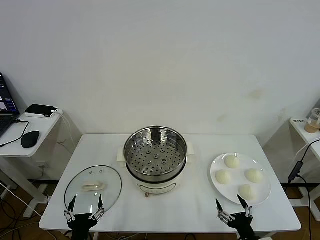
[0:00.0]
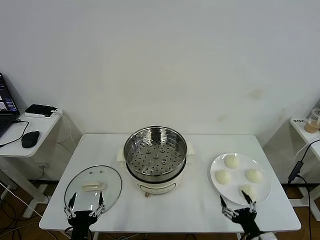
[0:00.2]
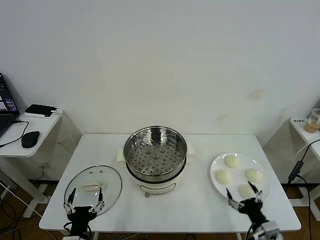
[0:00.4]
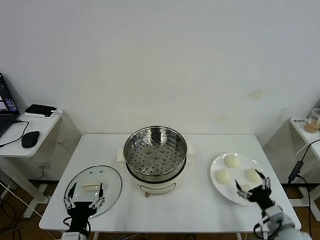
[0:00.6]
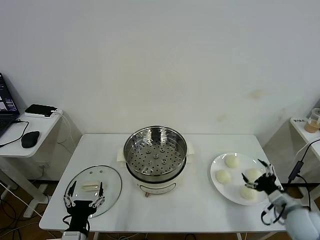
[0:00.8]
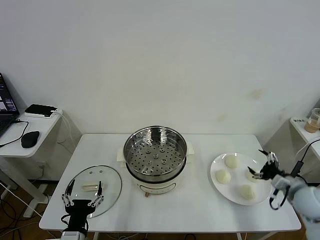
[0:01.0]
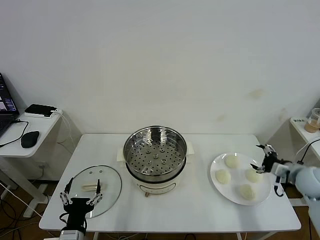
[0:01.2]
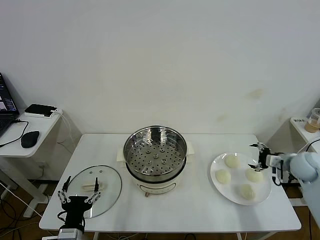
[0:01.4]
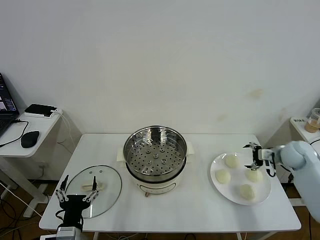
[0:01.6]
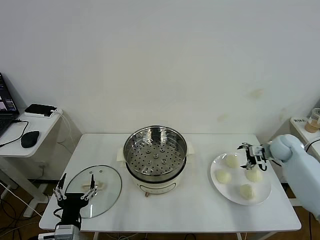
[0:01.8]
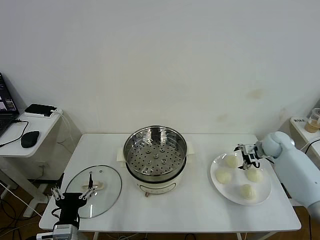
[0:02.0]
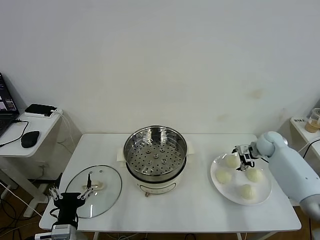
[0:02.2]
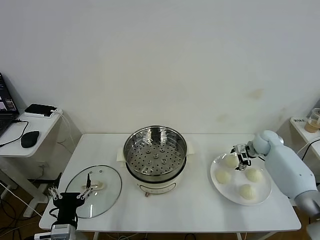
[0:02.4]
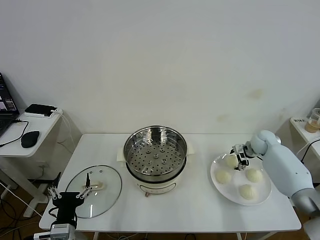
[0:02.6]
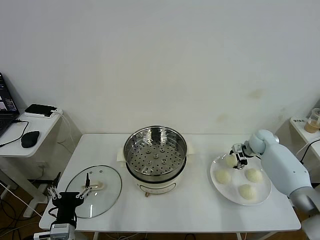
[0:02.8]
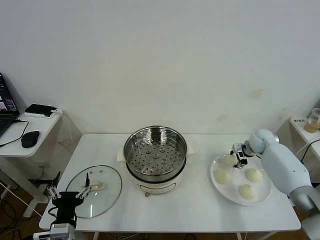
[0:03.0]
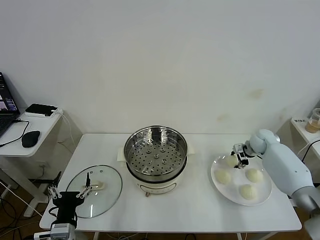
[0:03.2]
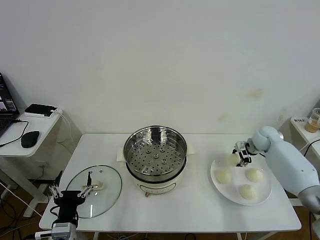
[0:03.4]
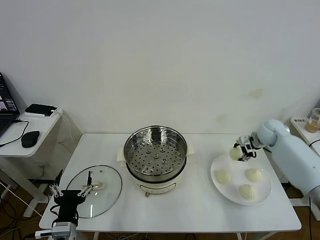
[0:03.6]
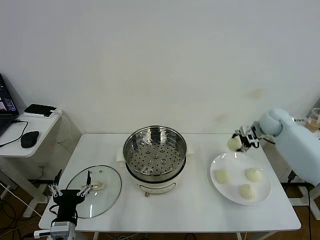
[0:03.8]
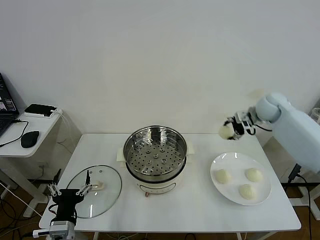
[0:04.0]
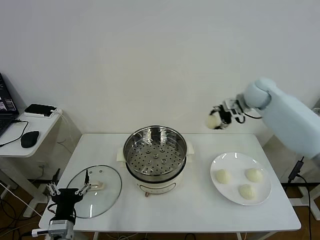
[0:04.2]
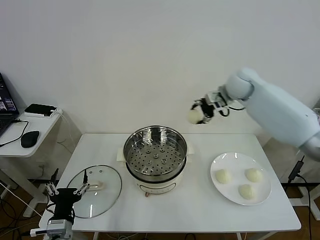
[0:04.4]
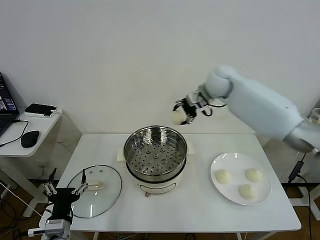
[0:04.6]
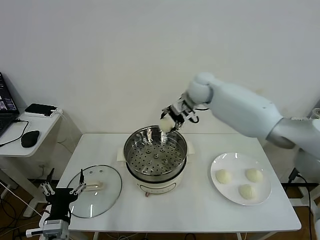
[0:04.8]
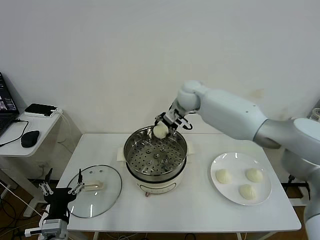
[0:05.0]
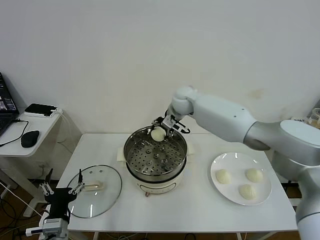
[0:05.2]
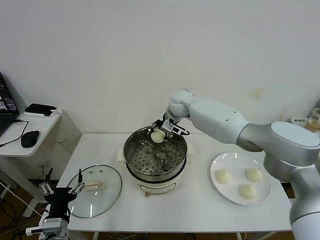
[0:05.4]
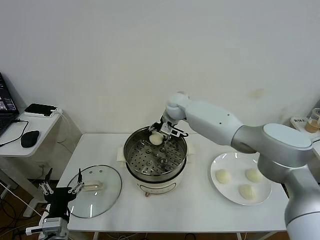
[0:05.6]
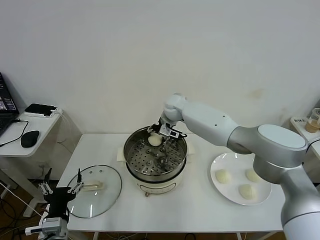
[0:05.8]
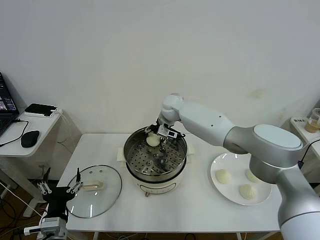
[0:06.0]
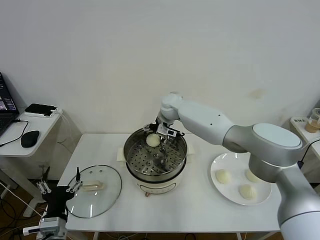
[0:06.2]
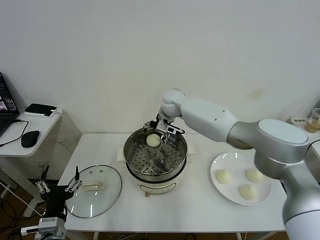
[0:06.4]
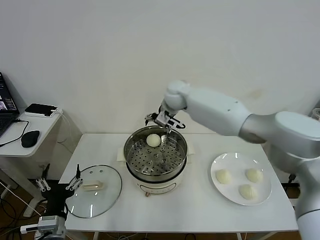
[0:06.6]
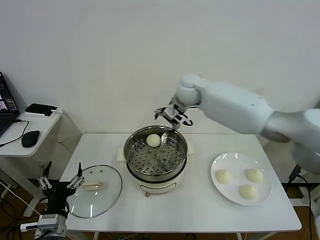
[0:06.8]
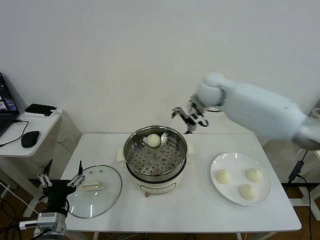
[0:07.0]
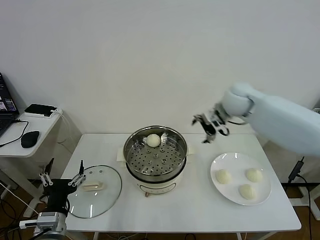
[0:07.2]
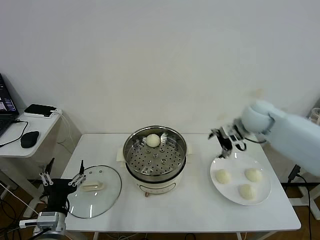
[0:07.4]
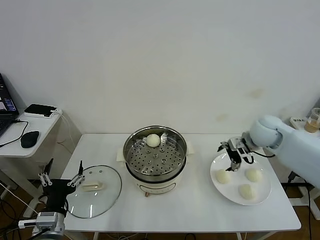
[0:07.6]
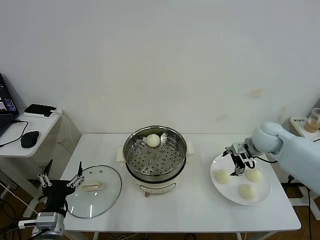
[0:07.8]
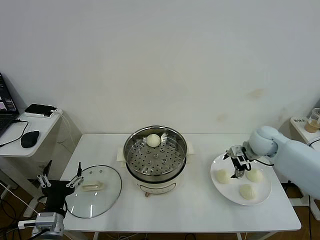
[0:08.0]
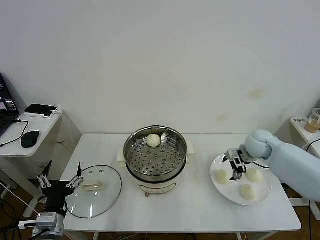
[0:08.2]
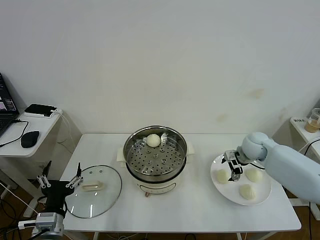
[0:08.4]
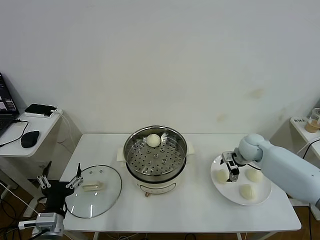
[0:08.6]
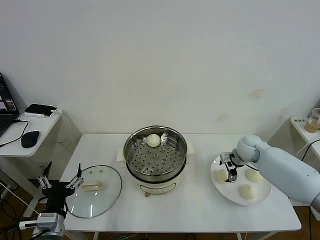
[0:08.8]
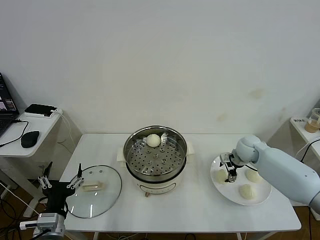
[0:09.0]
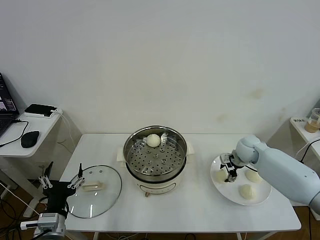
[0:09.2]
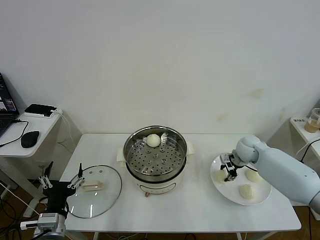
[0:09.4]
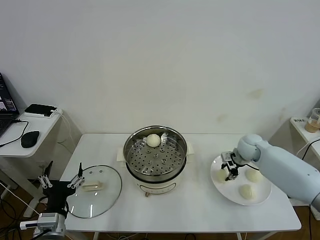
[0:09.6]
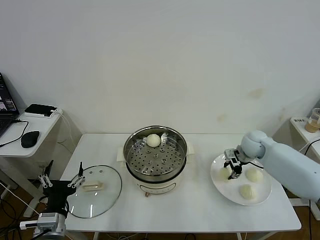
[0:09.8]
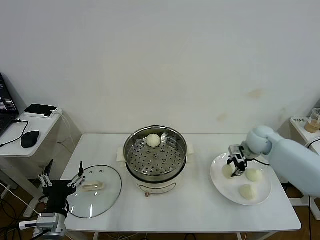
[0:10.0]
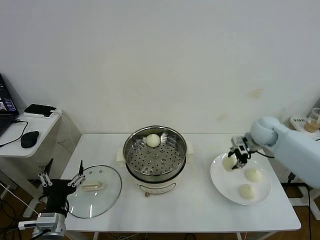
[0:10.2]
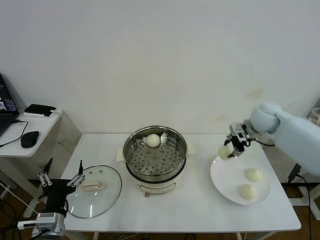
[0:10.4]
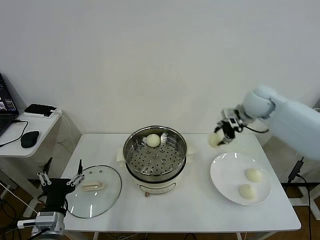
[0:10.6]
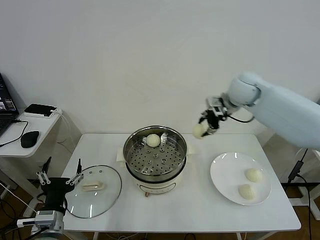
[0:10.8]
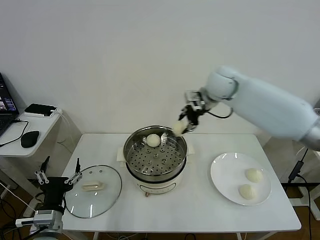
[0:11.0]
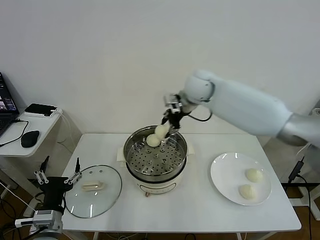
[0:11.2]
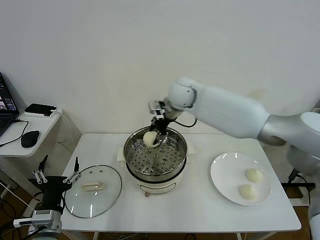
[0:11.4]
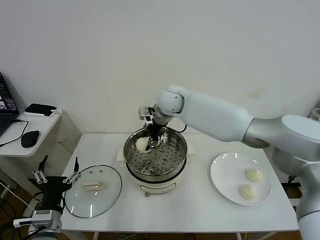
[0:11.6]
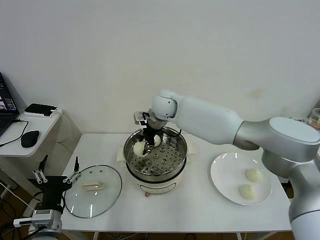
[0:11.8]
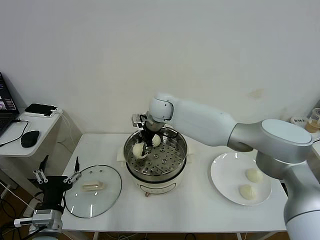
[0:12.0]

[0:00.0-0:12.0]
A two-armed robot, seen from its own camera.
Task of the whole recording: take steamed baozi put them in steamer then cover it.
Step, 0:00.0 to 0:03.0: Grasp the baozi in the plate with right gripper.
Step, 0:03.2 to 0:06.2: Place the baozi on the steamer with right gripper.
Step, 0:06.4 to 0:09.6: Grasp the baozi in the plate with right gripper.
0:01.6 to 0:03.0: The right gripper is displaced forward by about 10 cm, and closes its fingers.
0:03.0 to 0:04.4: The right gripper heads upward and to the left, covering roughly 30 cm.
0:04.4 to 0:06.0: The right gripper is displaced to the left and downward by roughly 20 cm, and opens its fingers.
0:06.0 to 0:07.6: The right gripper goes approximately 35 cm to the right and backward.
0:07.6 to 0:09.0: The right gripper goes approximately 10 cm downward, and closes up.
0:09.0 to 0:10.4: The right gripper is displaced upward by some 15 cm, and closes.
0:10.4 to 0:12.0: The right gripper shifts roughly 35 cm to the left.

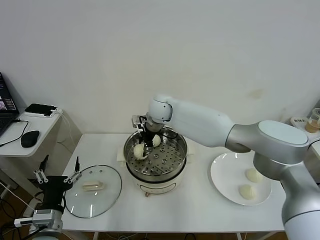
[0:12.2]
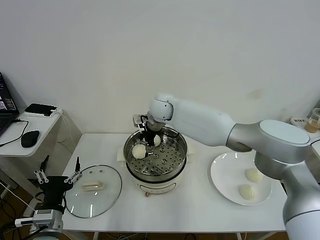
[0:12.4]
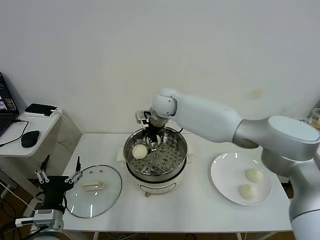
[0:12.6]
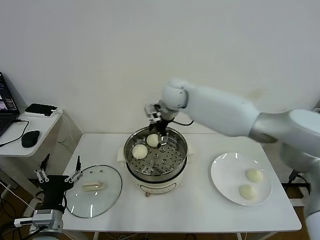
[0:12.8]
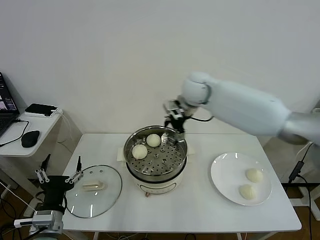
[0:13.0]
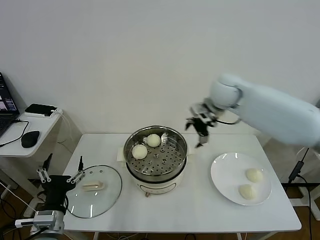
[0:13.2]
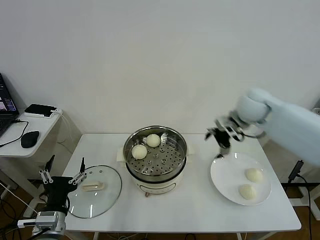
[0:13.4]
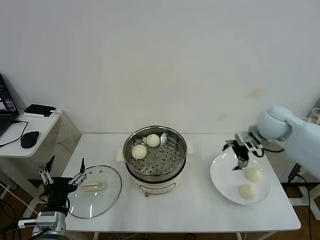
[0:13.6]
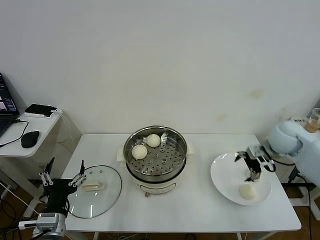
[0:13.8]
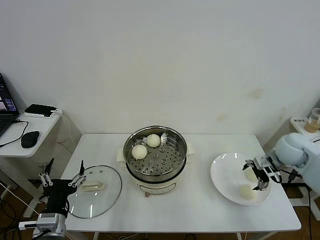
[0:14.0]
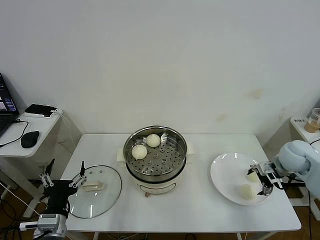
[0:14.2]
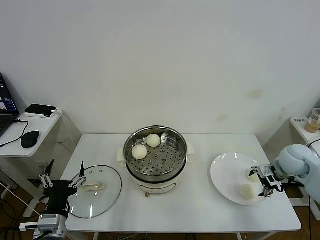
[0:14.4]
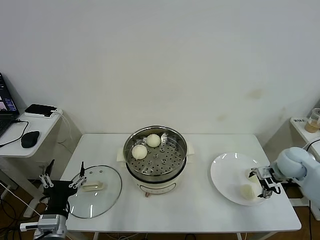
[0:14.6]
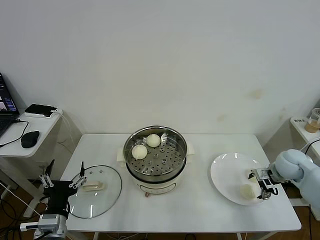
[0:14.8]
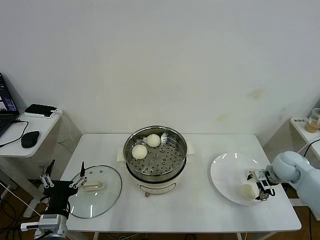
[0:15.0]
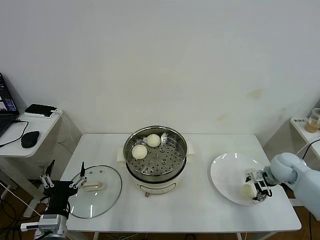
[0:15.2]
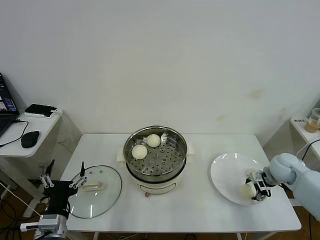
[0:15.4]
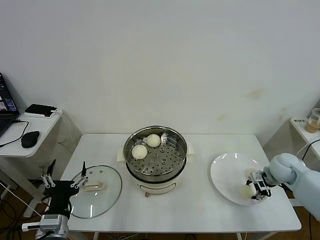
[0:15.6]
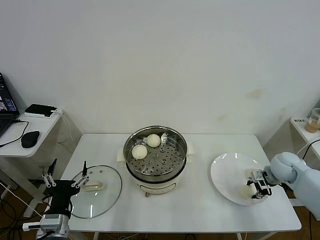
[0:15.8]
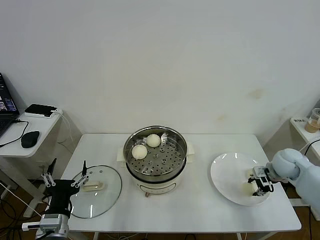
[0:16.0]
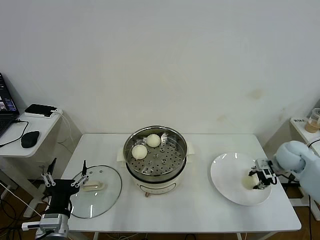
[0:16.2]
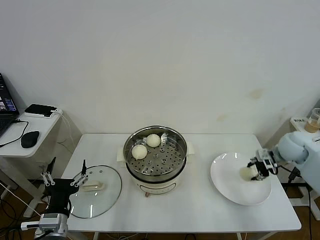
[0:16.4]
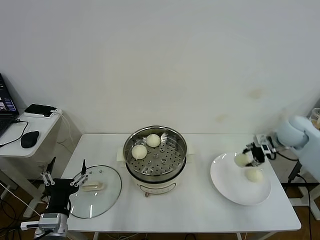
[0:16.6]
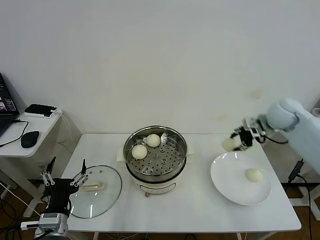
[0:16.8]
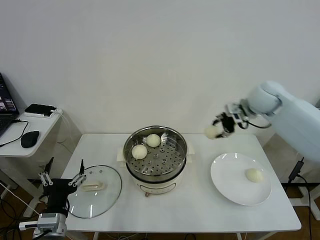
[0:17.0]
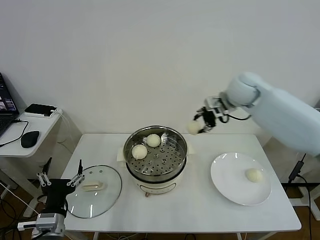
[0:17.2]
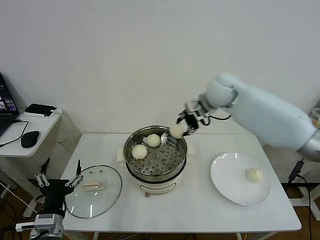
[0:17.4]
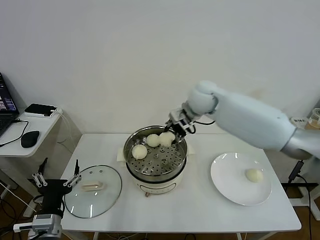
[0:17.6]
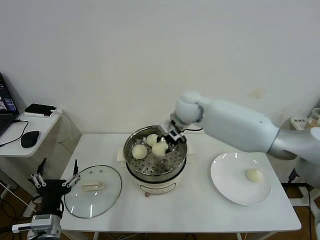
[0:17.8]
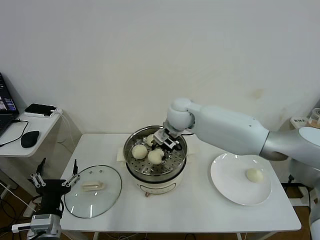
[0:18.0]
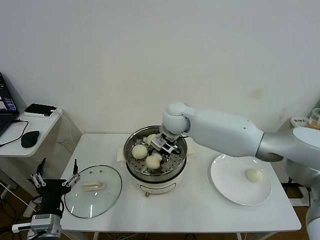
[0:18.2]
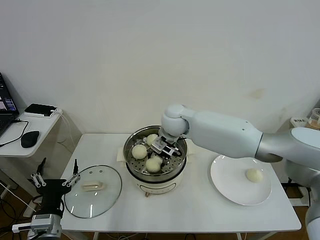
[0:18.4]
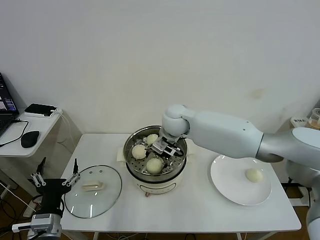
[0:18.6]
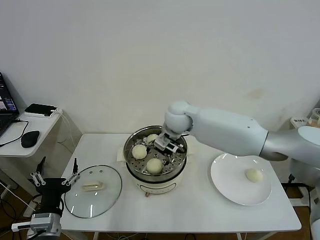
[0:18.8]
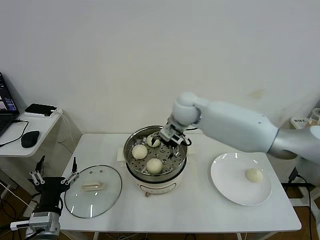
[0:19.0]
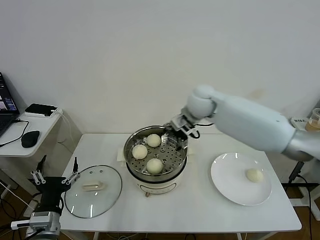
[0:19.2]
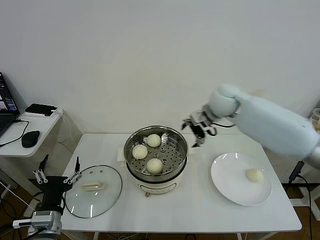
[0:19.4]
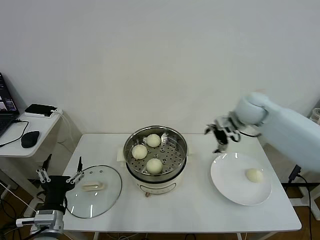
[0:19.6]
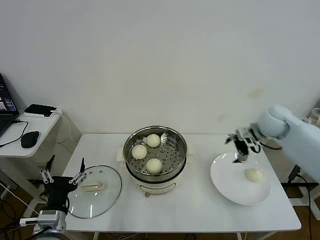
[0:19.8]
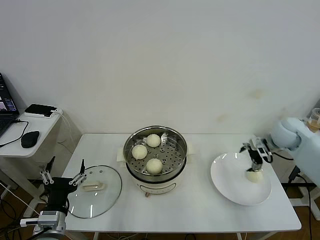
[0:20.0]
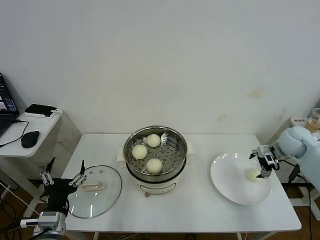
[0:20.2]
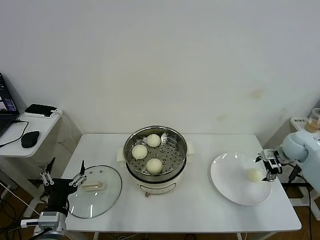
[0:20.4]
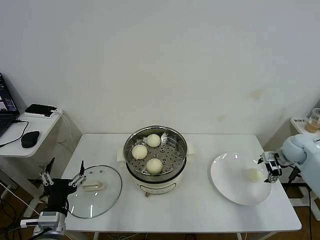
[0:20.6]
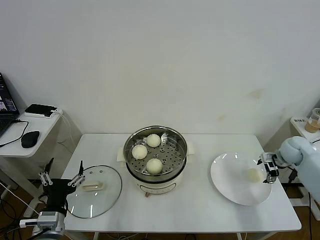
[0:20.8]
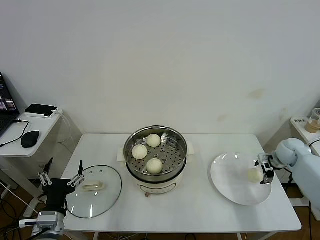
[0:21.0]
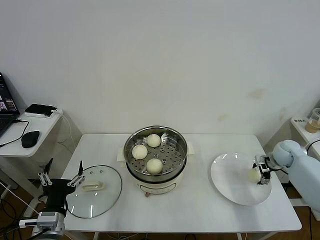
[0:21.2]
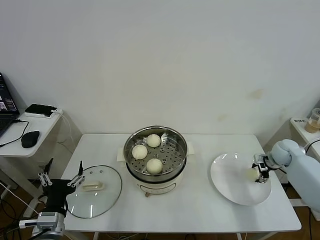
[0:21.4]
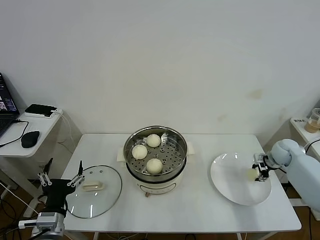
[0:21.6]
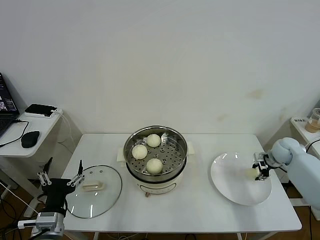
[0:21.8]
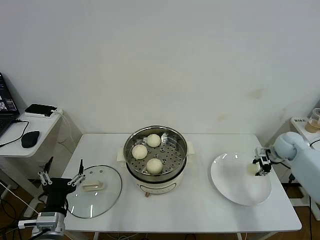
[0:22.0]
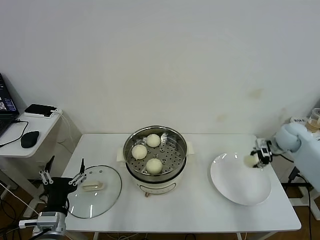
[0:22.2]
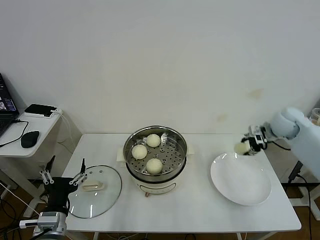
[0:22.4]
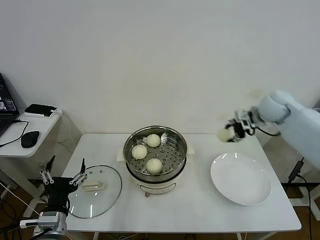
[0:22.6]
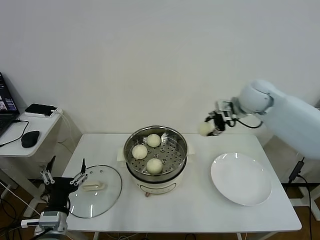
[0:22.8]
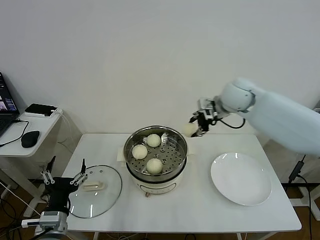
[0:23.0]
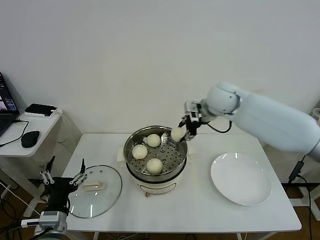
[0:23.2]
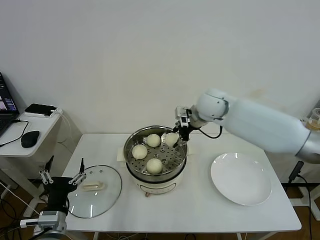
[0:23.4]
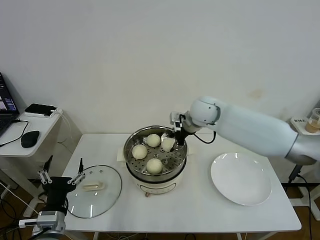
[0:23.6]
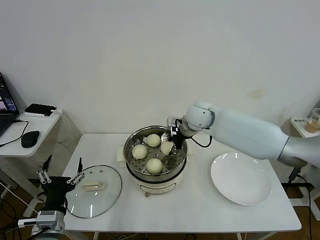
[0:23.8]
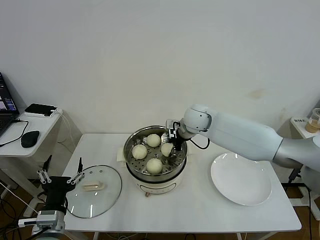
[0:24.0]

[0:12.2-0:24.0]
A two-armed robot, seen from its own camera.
Task of the whole recording: take steamed baozi put them in steamer then cover it.
Step, 0:12.4 to 0:15.8: Grasp the baozi in the plate with right gripper.
Step, 0:16.0 to 0:18.8: Place the baozi on the steamer with right gripper.
Step, 0:19.0 to 0:21.6: Grasp the baozi in the plate with right gripper.
0:12.2 to 0:13.6: The right gripper travels to the right by approximately 35 cm, and opens.
0:13.6 to 0:15.2: The right gripper goes approximately 15 cm downward and to the right.
0:15.2 to 0:16.6: The right gripper travels upward and forward by roughly 15 cm, and closes its fingers.
0:16.6 to 0:18.2: The right gripper goes approximately 35 cm to the left.
0:18.2 to 0:19.6: The right gripper goes approximately 25 cm to the right, and opens its fingers.
0:19.6 to 0:21.0: The right gripper shifts roughly 25 cm to the right and downward.
0:21.0 to 0:22.6: The right gripper shifts approximately 25 cm upward and to the left, and closes its fingers.
0:22.6 to 0:24.0: The right gripper travels to the left by roughly 20 cm.
